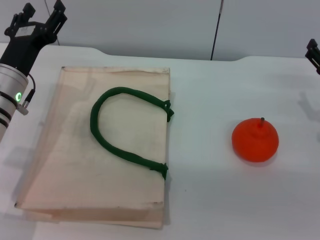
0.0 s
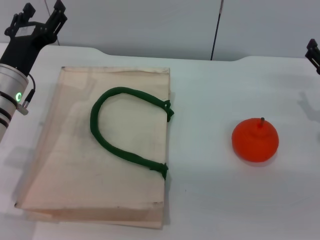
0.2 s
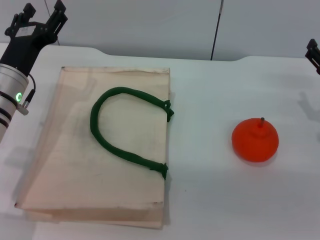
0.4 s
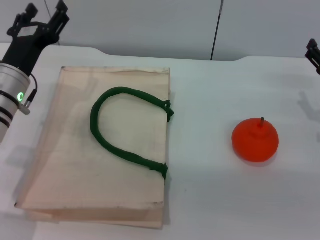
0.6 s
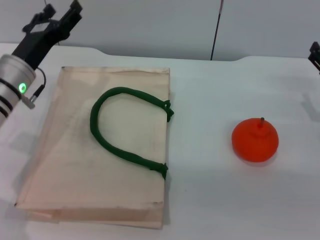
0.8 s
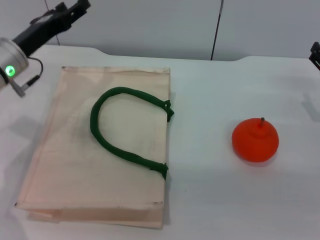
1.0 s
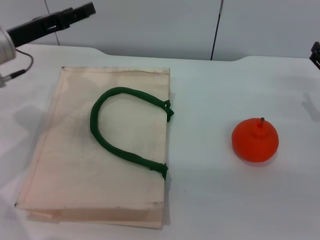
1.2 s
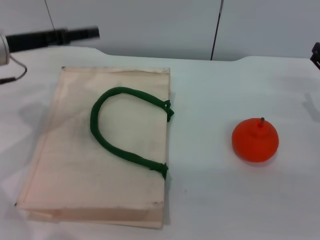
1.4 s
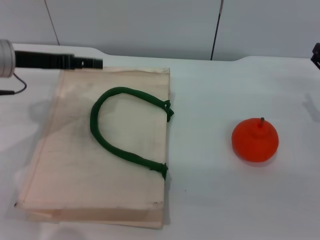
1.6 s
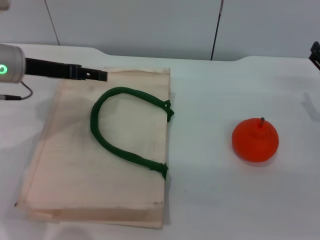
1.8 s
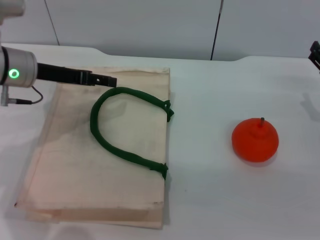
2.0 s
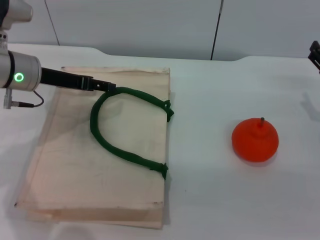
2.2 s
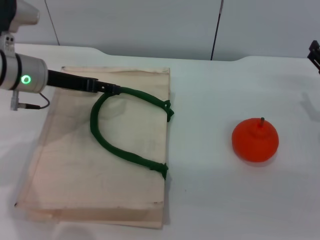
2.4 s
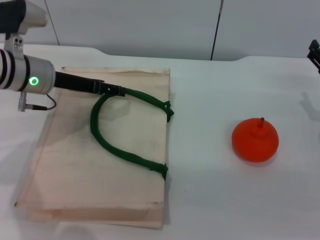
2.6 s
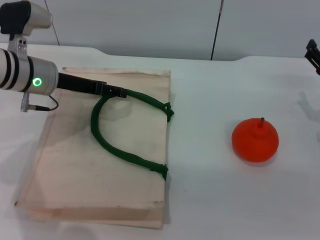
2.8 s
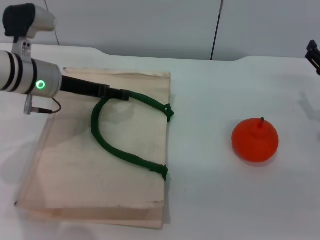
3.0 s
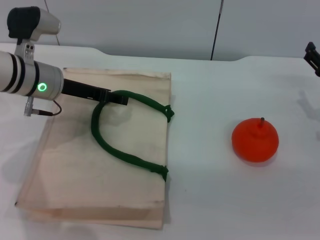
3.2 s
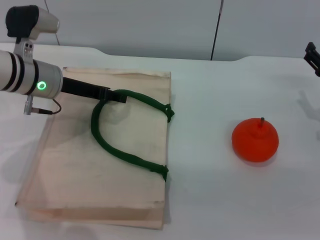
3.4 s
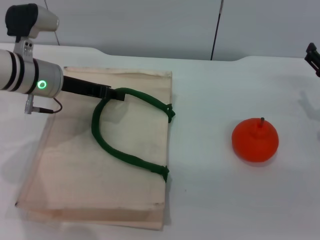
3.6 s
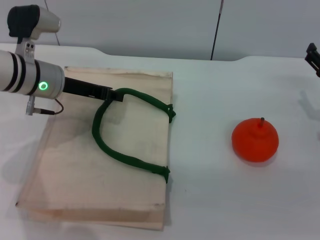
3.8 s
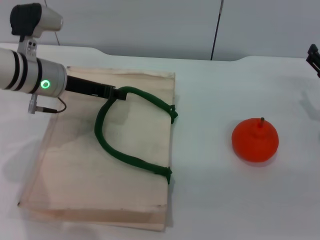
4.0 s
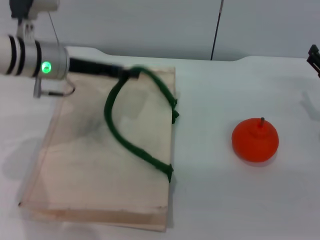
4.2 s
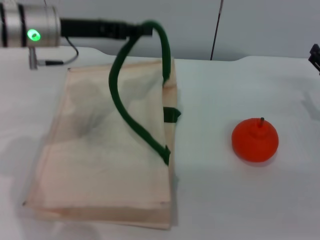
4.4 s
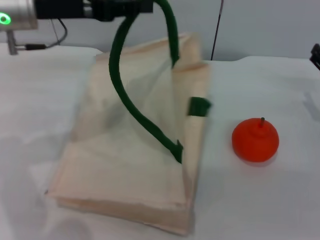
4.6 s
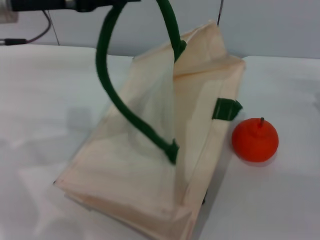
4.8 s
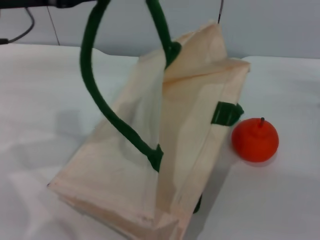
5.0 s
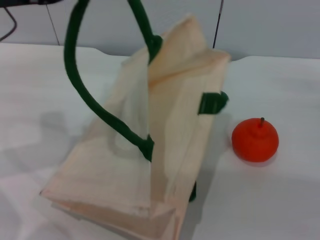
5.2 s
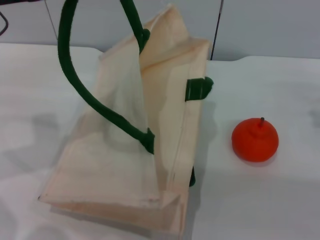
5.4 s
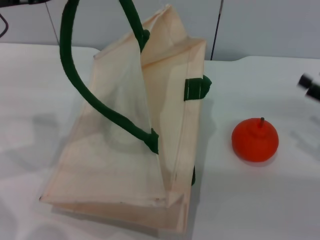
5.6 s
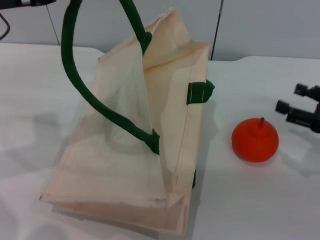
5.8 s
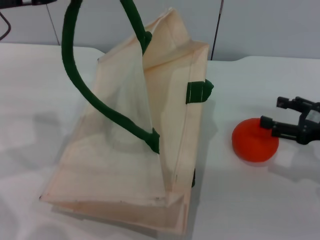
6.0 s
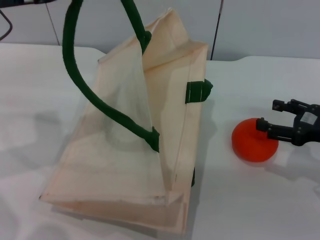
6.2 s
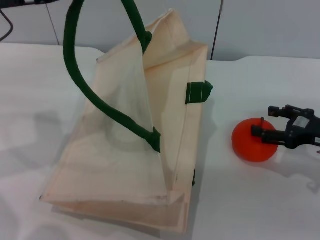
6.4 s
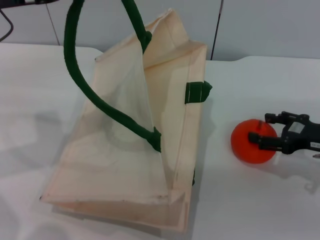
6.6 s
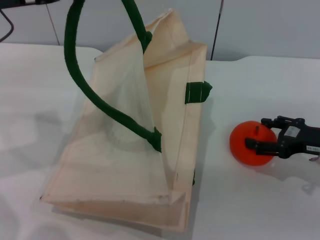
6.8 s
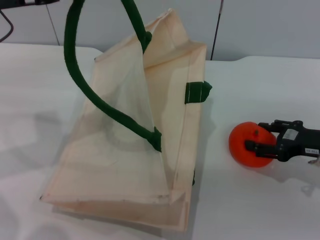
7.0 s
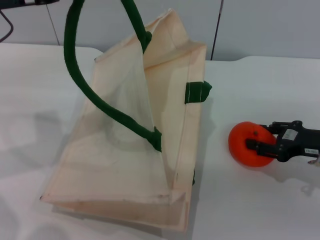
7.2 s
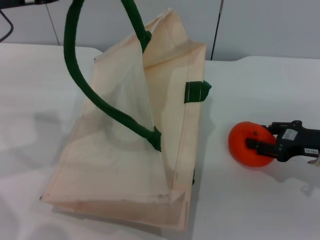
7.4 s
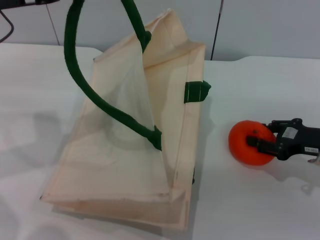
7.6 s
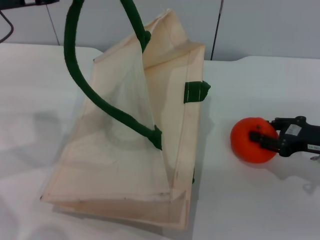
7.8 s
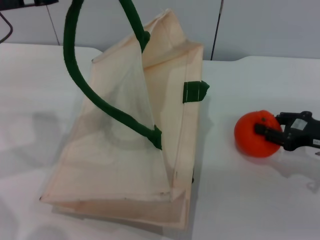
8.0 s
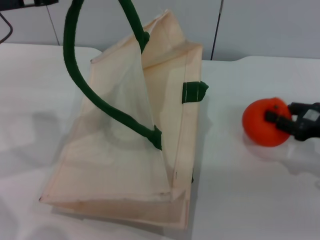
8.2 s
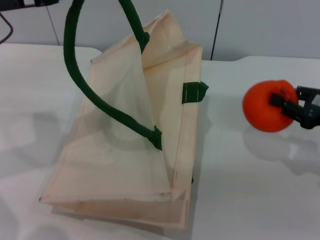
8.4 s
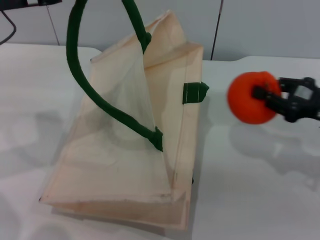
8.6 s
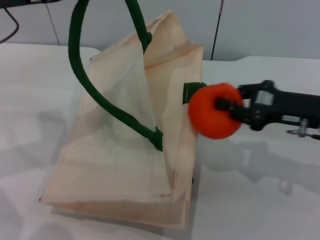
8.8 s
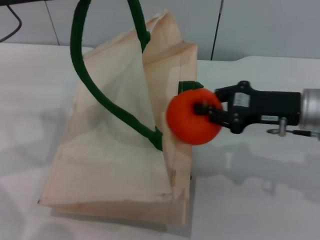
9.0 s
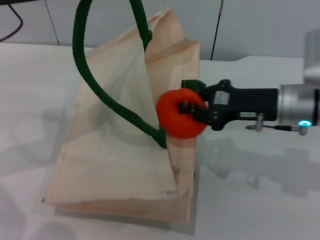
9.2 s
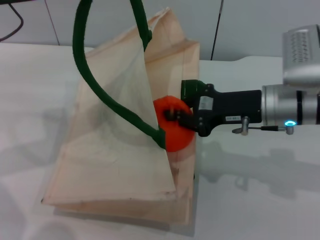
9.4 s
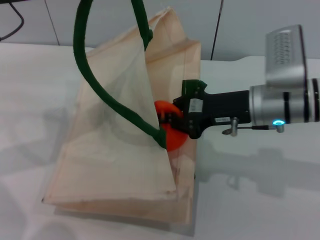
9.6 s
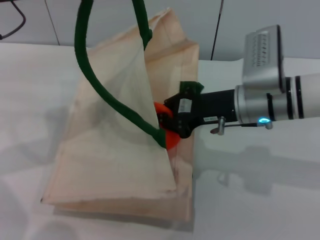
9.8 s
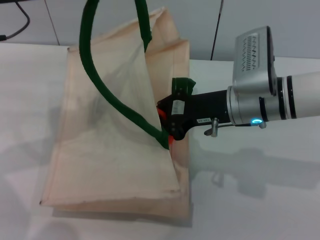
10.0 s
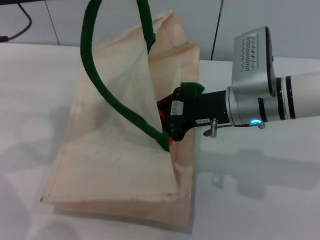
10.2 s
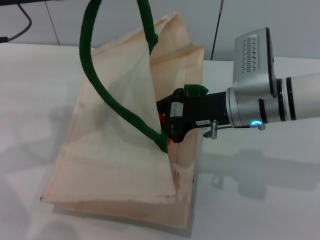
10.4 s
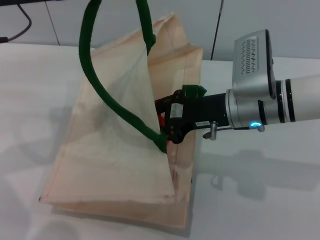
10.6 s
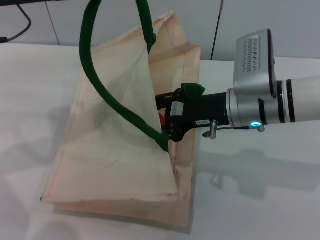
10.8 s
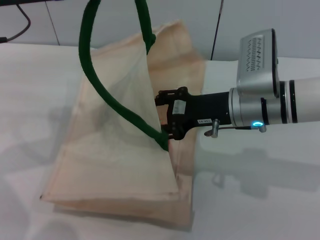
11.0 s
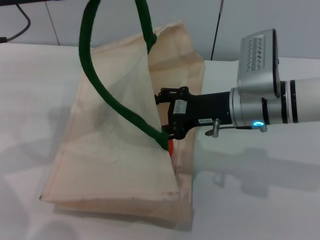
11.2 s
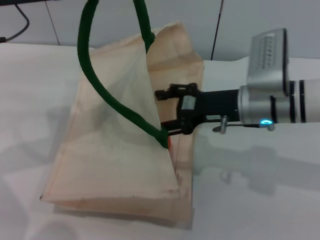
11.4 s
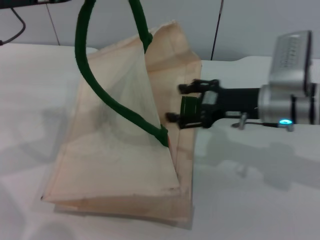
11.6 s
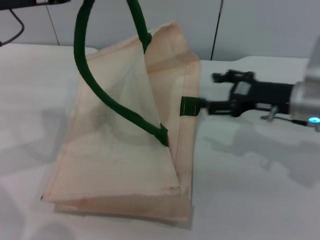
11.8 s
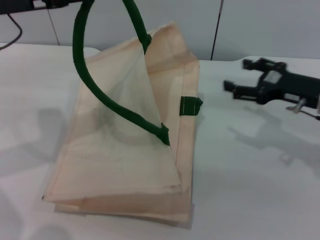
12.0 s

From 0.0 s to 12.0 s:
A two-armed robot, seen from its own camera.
Task of the whole recording: pick up the orange from the table and place it in the white handbag.
Step, from 0.0 s to 4.6 s: Lift the woven bag with the left gripper to open it.
Step, from 4.8 s to 8.6 s: Pick up the orange with the right gripper.
Step, from 8.8 s to 11.8 s: Place the orange into the woven bag with the right gripper.
From 0.0 s to 1.6 s: The left gripper goes some 5 cm upward.
From 1.6 s to 3.0 s: The left gripper goes about 5 cm to the right.
From 3.0 s to 4.4 s: The left gripper shifts about 10 cm upward, and closes.
From 4.4 s to 6.0 s: The left gripper moves to the left and backward, about 10 cm. The right gripper changes place by some 5 cm.
From 6.0 s to 7.6 s: The right gripper closes up.
From 7.6 s to 9.0 s: The right gripper moves to the left and upward, some 10 cm, and closes its fingers.
From 9.0 s to 10.4 s: The right gripper heads to the left, covering some 10 cm.
From 10.4 s to 12.0 s: The right gripper is displaced to the right by roughly 15 cm, and opens.

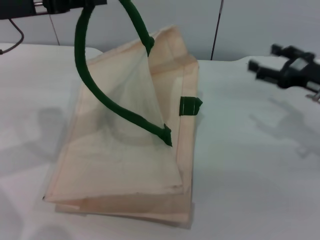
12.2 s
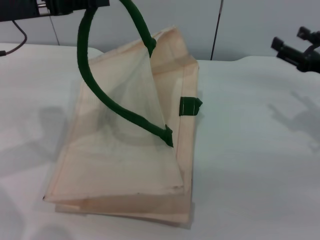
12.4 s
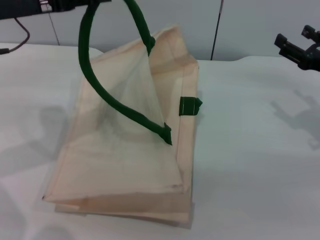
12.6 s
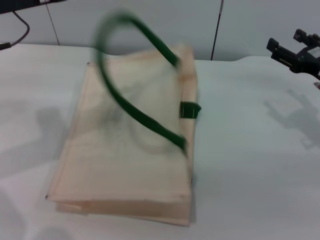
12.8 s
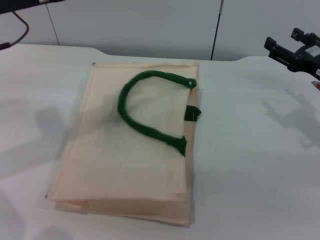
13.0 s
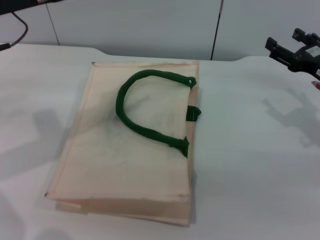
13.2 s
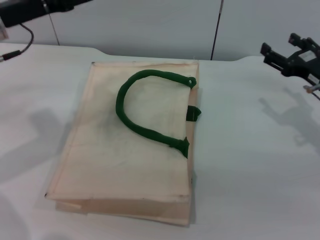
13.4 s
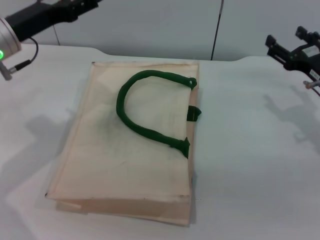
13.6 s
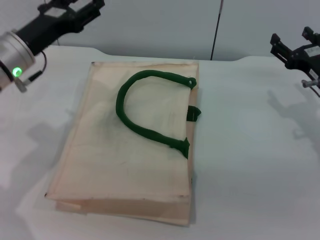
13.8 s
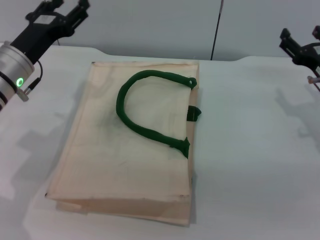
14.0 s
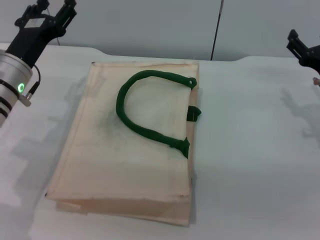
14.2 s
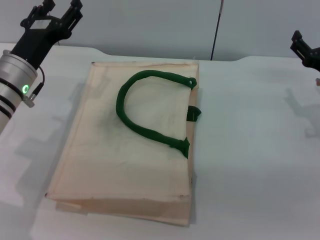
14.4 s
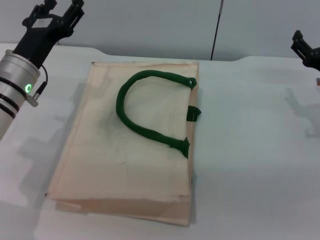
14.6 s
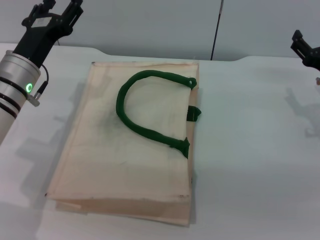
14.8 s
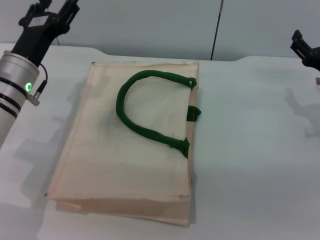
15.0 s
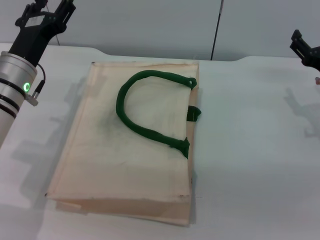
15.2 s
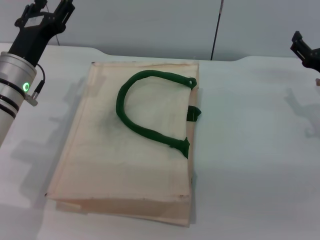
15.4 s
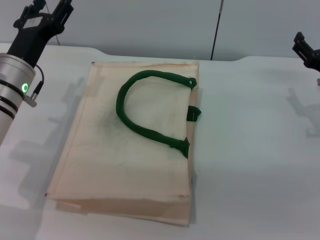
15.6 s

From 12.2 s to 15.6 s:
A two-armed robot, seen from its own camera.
Task of the whole recording: pick up the orange from the table and place it in the white handbag.
Step, from 12.2 s to 13.0 s: Lower the woven bag with the left gripper to close it.
From 12.2 s to 13.8 s: The left gripper is displaced downward by approximately 10 cm, and opens its fingers.

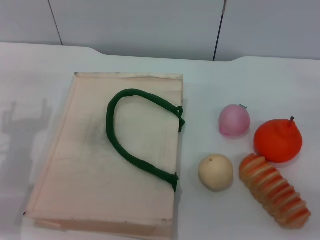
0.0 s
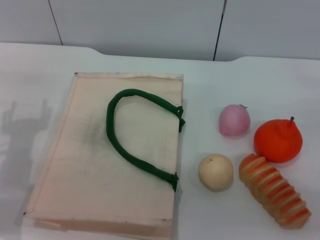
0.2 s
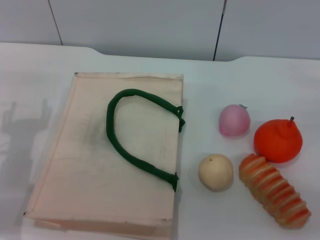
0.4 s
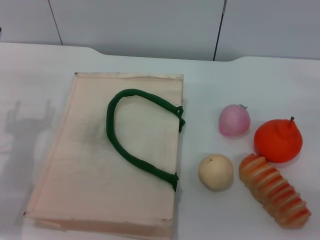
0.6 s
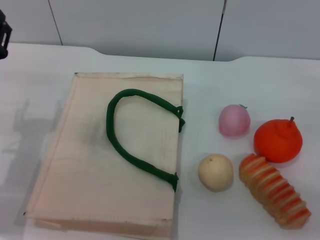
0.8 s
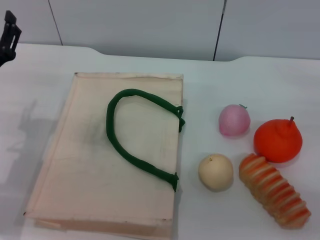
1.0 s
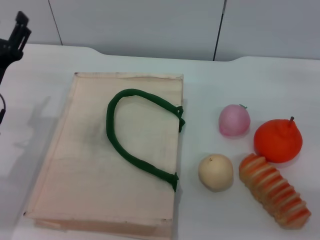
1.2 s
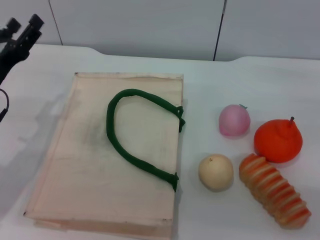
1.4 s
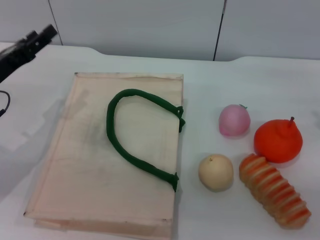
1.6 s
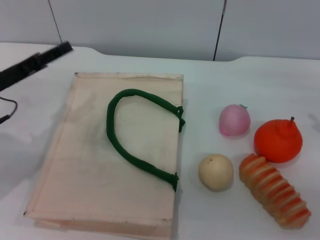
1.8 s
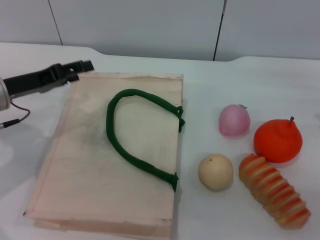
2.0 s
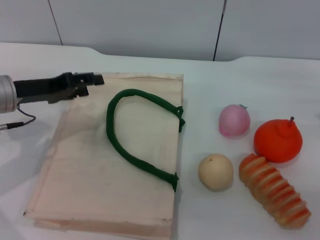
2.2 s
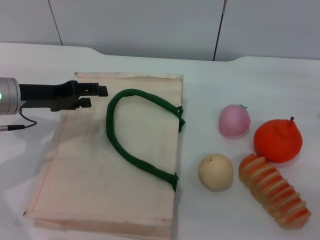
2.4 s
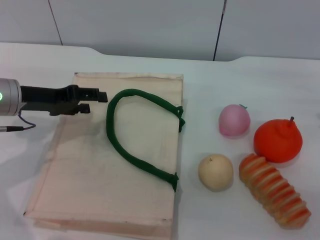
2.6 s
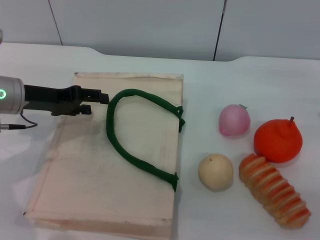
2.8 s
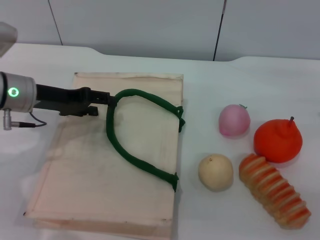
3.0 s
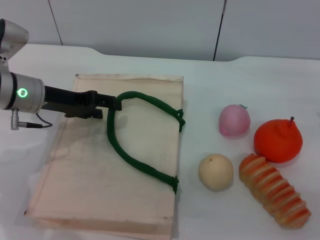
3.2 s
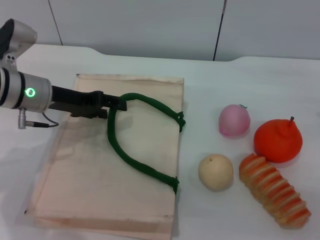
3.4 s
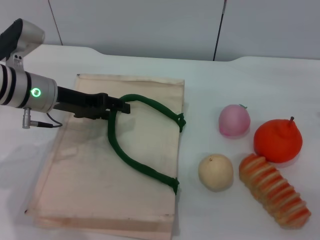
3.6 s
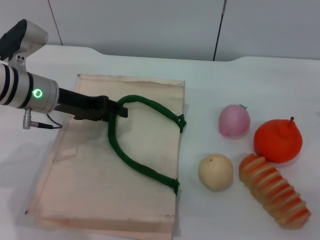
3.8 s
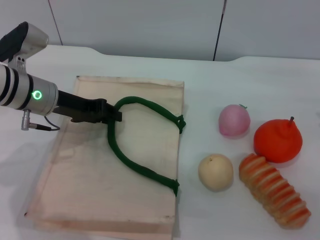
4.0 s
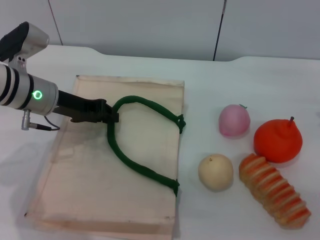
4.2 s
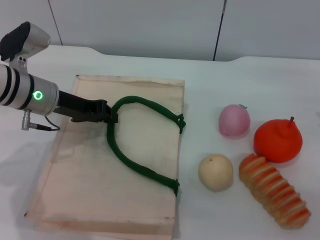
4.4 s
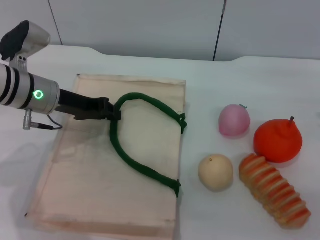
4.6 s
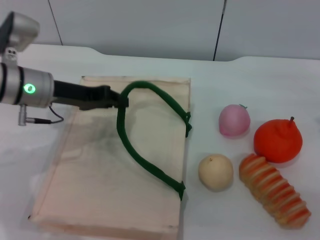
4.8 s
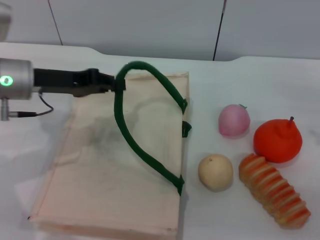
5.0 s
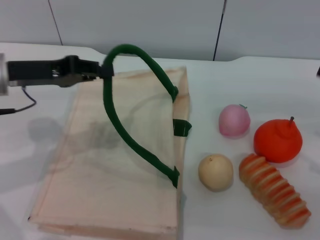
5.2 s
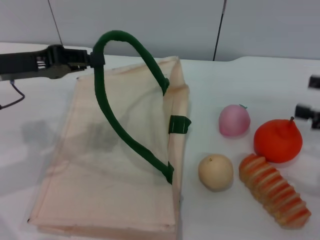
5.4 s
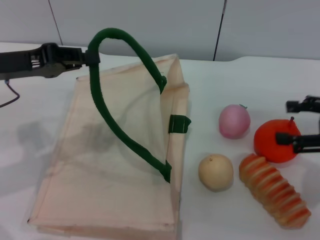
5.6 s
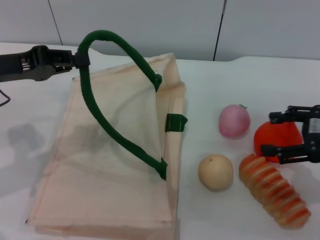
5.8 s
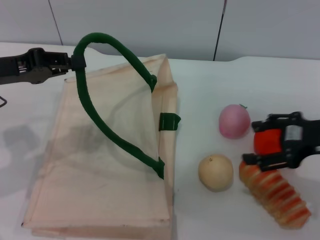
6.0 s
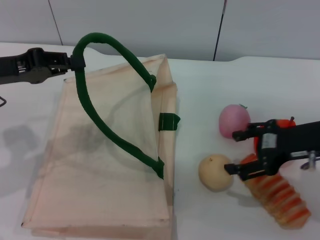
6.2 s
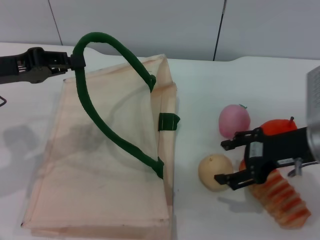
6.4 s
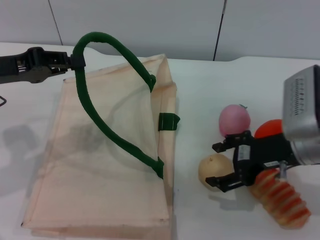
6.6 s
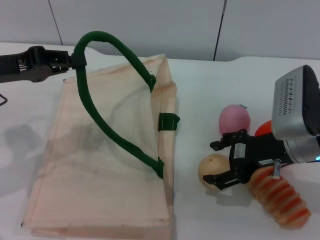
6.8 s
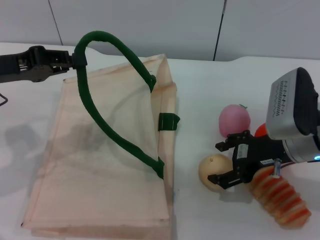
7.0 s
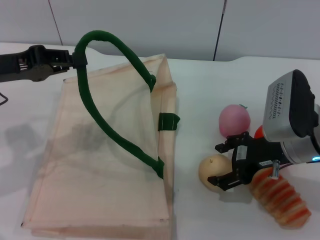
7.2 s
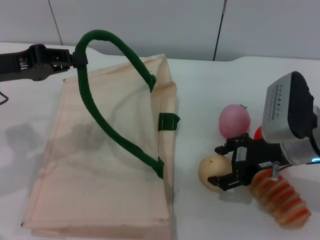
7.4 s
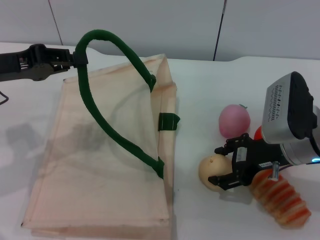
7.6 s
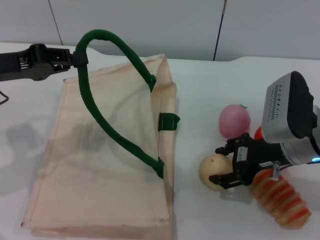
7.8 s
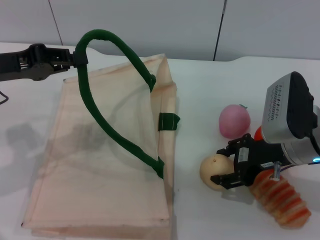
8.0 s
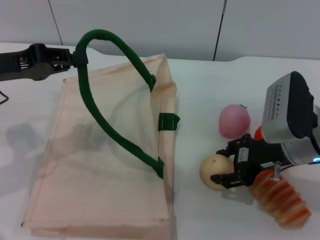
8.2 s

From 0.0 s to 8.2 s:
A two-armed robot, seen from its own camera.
Task of the whole recording: pick up the egg yolk pastry from the table and place it in the white handbag.
Step, from 0.0 s to 5.0 s: Lift the woven bag with the left gripper to open it.
From 1.6 s to 3.2 s: The left gripper moves to the right and forward, about 10 cm.
From 3.2 s to 5.0 s: The left gripper closes up.
From 5.0 s to 6.6 s: The right gripper is displaced to the left by roughly 15 cm; the left gripper shifts some 5 cm to the left.
From 6.6 s to 8.2 s: The right gripper closes up.
